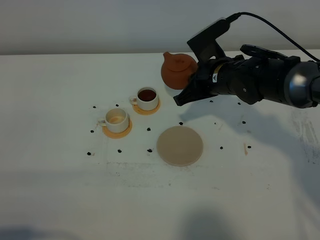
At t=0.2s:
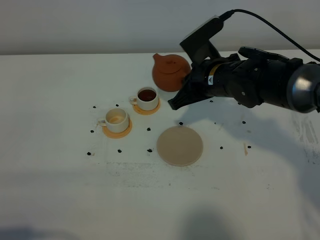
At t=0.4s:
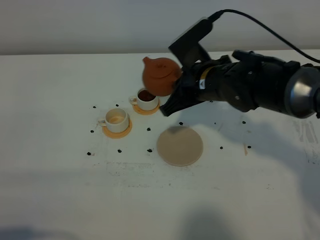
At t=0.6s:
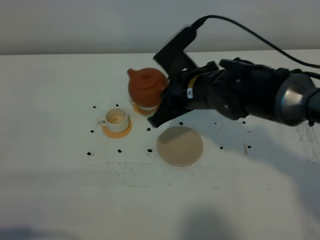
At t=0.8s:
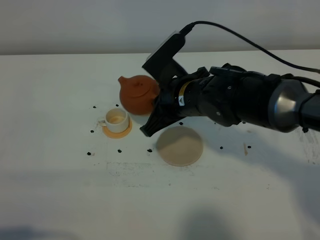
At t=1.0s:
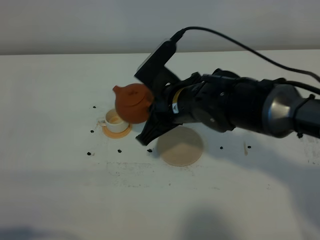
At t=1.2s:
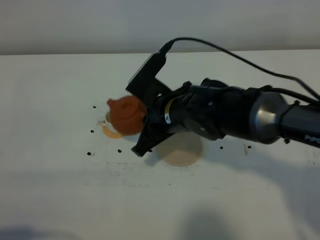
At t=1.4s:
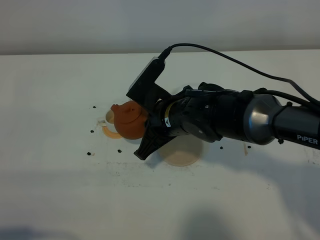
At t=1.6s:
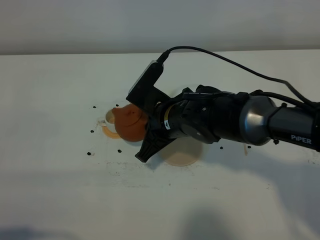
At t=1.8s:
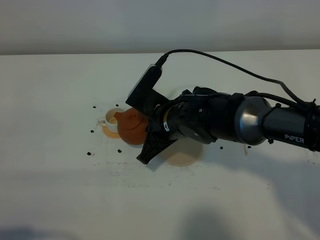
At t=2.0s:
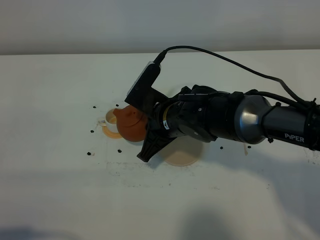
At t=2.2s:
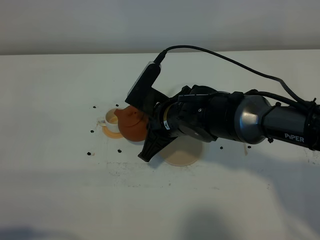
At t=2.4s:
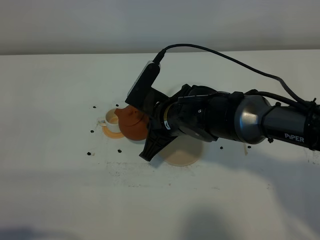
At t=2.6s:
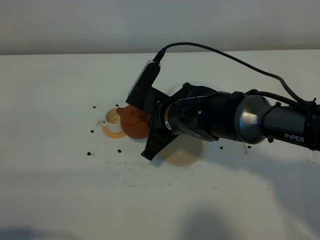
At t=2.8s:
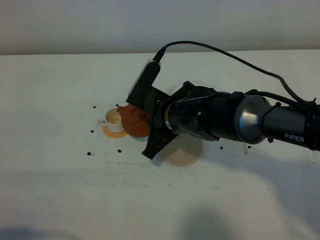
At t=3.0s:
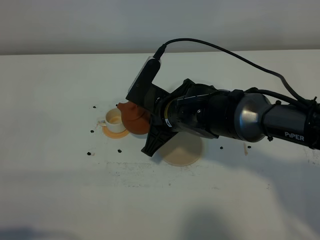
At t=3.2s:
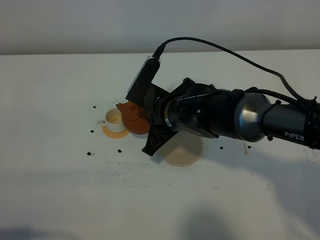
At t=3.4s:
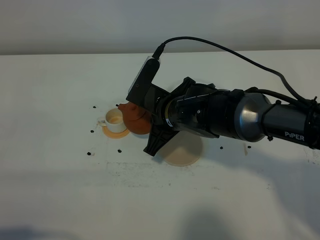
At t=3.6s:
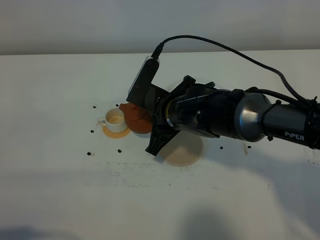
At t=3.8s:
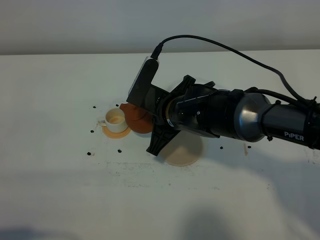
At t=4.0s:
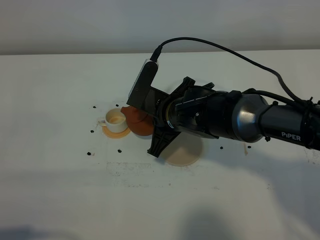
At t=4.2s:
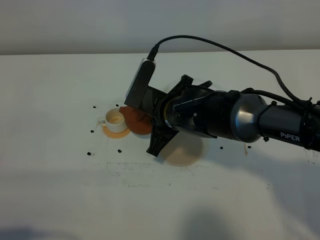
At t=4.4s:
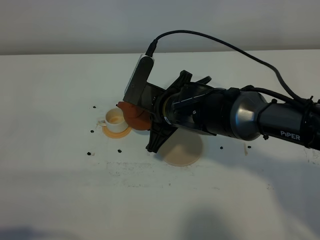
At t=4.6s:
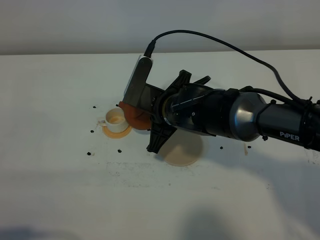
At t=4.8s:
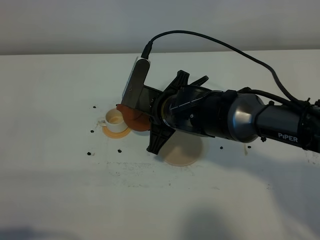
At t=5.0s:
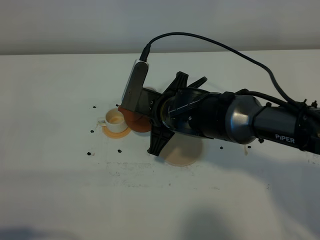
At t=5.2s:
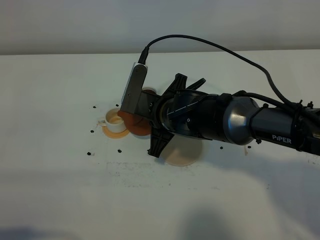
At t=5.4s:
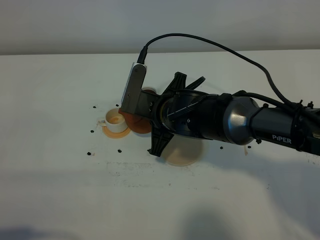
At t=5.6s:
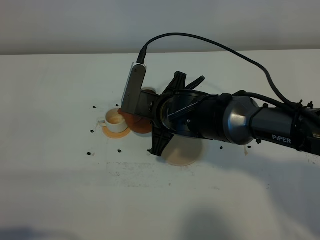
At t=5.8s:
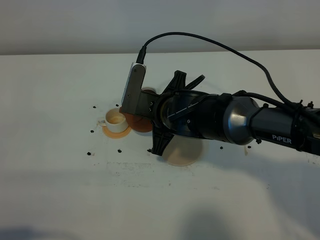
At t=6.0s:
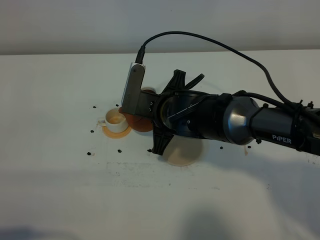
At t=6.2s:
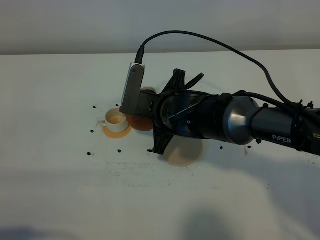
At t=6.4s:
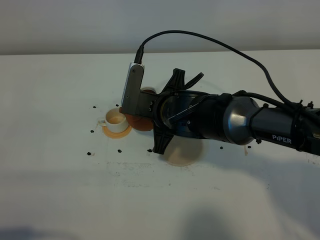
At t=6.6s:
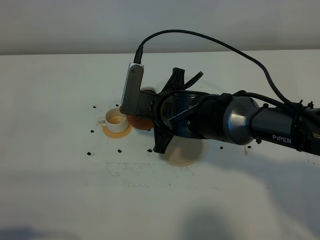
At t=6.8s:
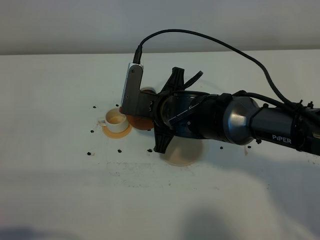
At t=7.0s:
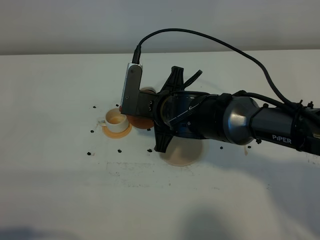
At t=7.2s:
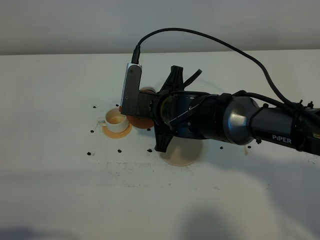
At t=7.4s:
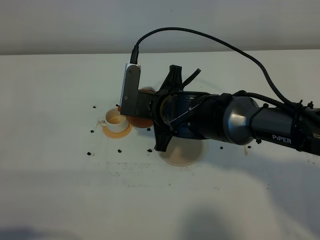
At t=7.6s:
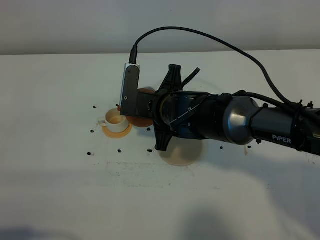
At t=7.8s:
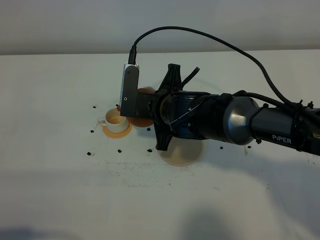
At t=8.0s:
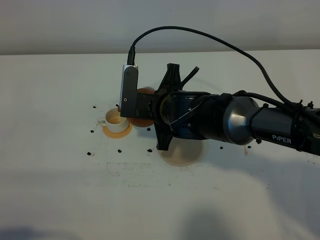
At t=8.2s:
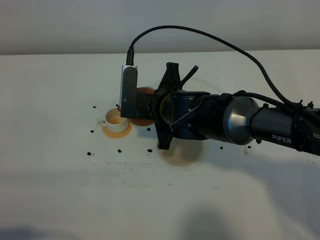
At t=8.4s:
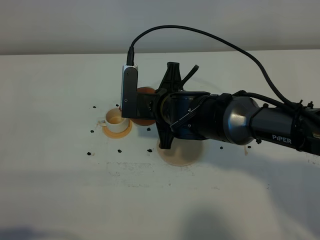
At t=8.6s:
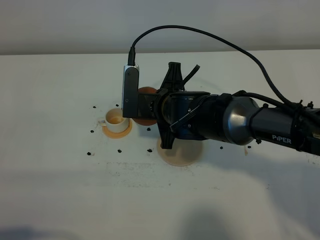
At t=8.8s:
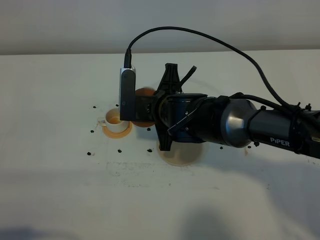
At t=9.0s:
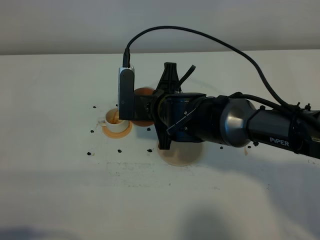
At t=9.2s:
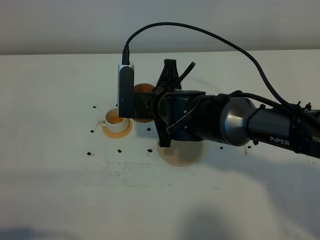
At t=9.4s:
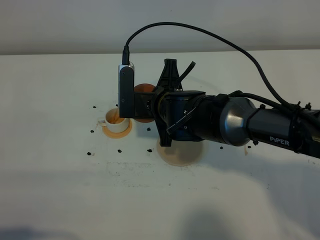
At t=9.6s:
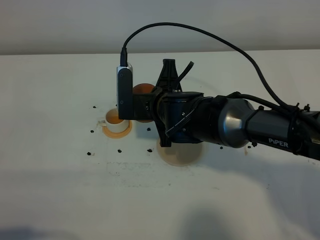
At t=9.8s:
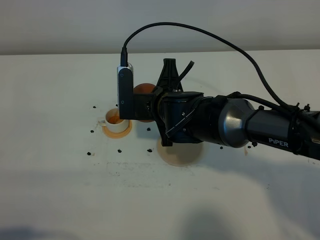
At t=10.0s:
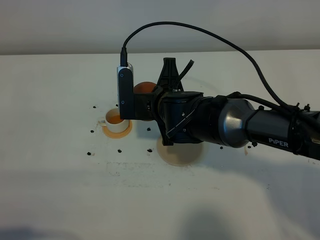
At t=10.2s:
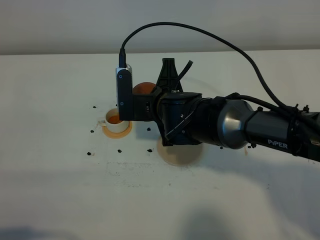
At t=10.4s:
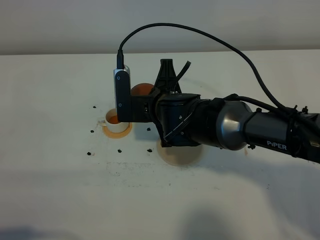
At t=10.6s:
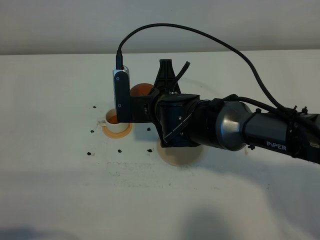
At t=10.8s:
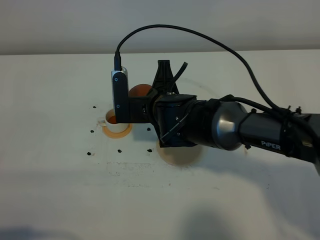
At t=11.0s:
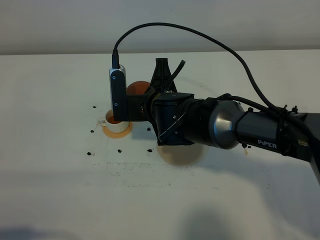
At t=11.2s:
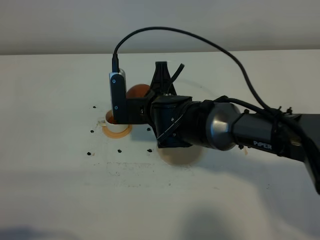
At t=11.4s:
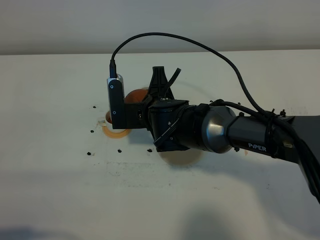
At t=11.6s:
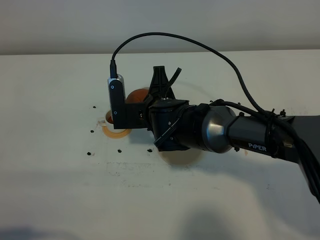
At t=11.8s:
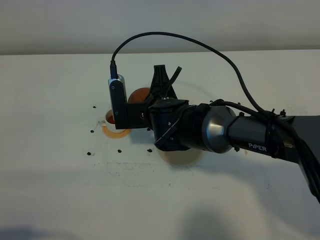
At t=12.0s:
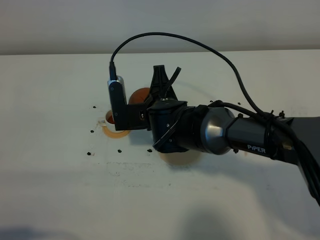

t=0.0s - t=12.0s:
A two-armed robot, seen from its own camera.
Task of the whole recording: grasp the brown teapot and pour the tea into the two white teacups one by one, put the brown teapot back in its original place.
t=0.0s - t=1.6s: The right gripper heads backward and to the left, covering some 10 cm.
t=1.6s - t=4.4s: The grippers stay close to where they were, moving slightly.
t=4.4s - t=7.6s: The grippers move only a little.
t=7.6s - t=12.0s: The grippers stay close to where they were, moving slightly.

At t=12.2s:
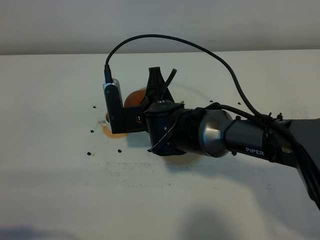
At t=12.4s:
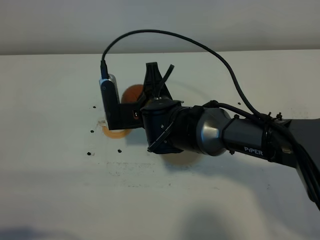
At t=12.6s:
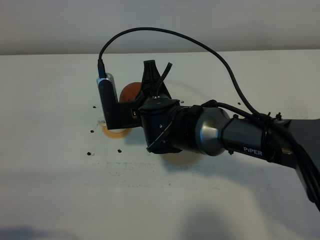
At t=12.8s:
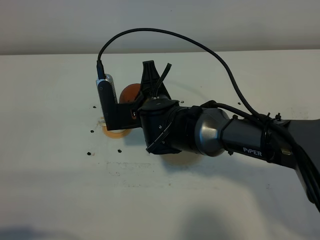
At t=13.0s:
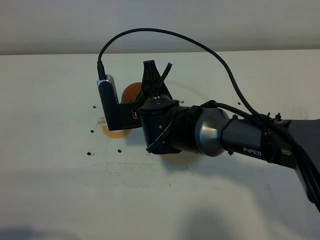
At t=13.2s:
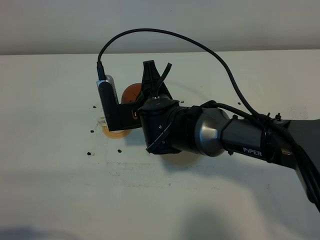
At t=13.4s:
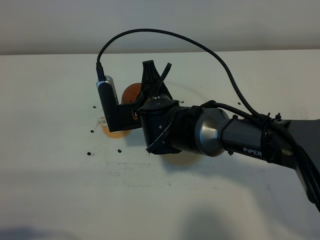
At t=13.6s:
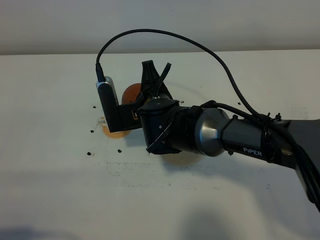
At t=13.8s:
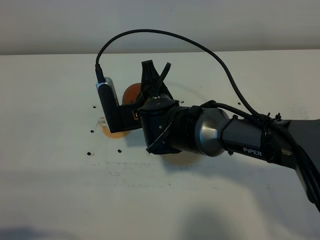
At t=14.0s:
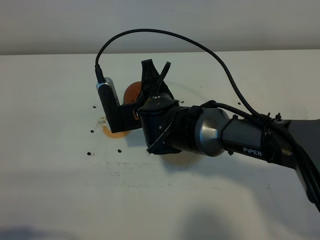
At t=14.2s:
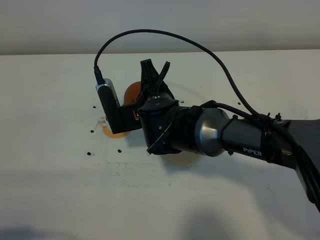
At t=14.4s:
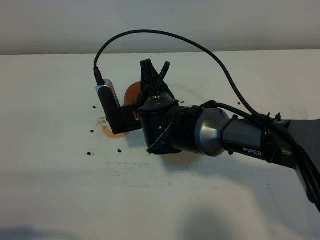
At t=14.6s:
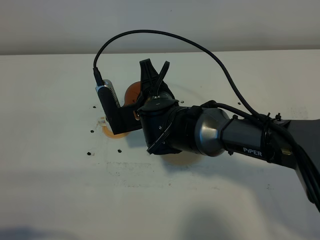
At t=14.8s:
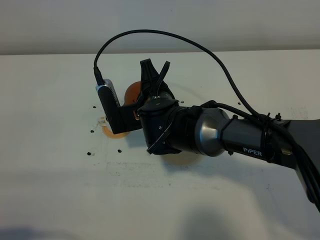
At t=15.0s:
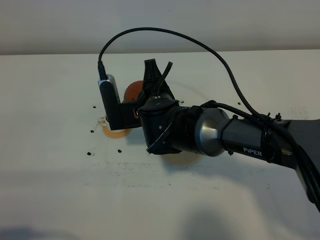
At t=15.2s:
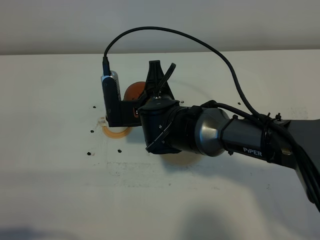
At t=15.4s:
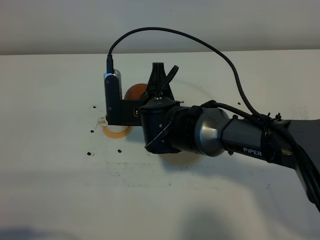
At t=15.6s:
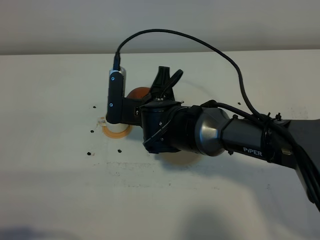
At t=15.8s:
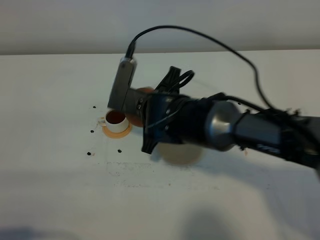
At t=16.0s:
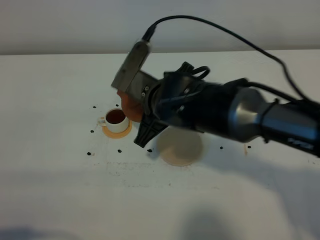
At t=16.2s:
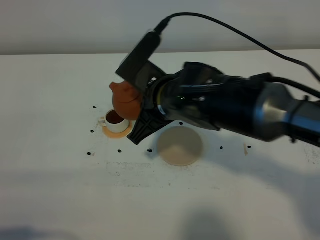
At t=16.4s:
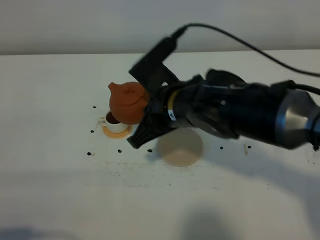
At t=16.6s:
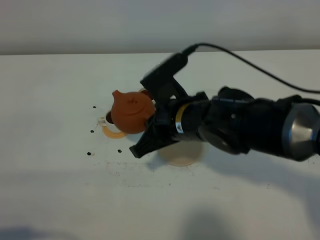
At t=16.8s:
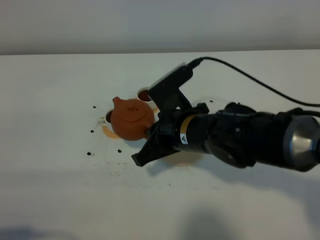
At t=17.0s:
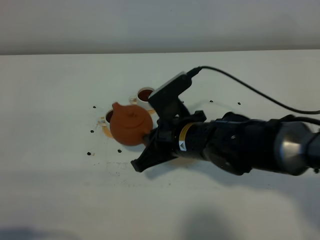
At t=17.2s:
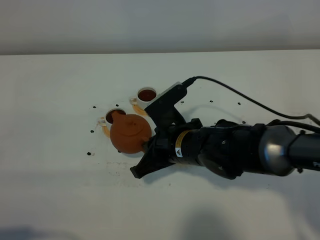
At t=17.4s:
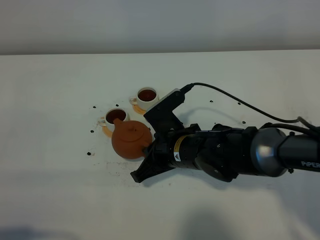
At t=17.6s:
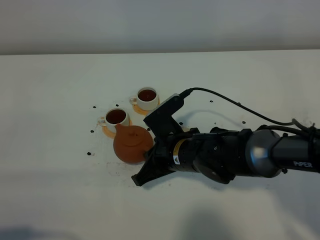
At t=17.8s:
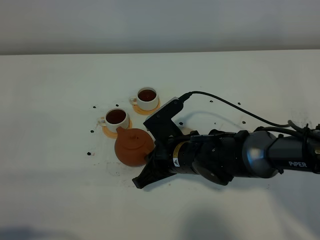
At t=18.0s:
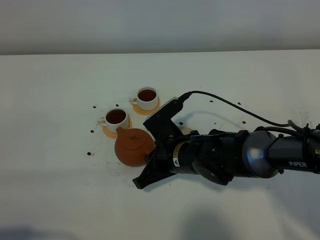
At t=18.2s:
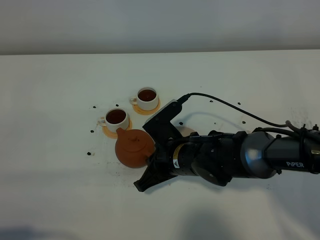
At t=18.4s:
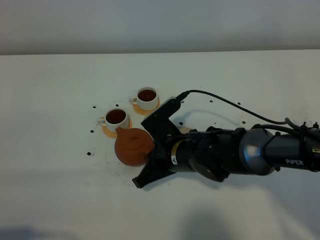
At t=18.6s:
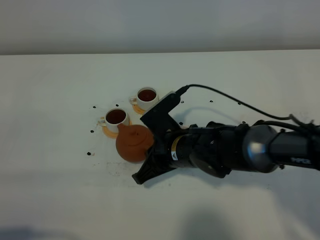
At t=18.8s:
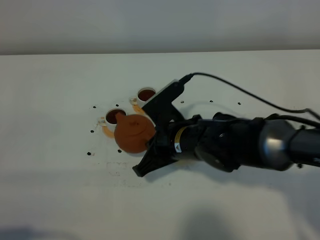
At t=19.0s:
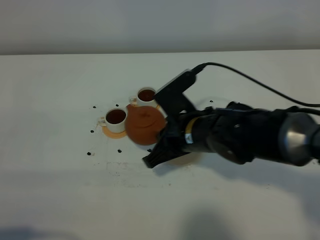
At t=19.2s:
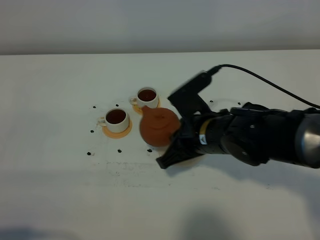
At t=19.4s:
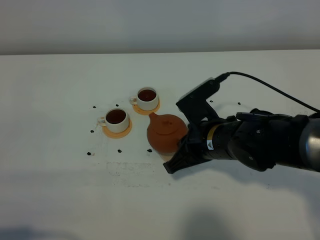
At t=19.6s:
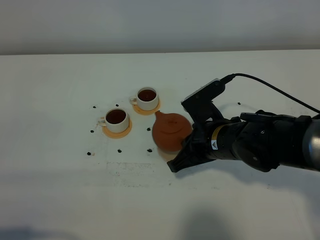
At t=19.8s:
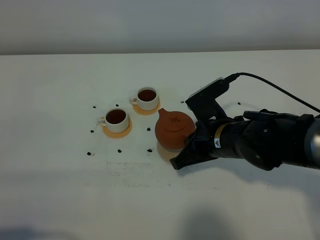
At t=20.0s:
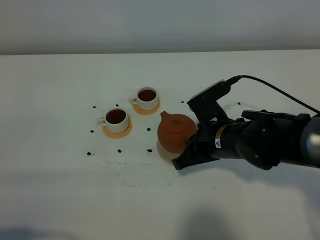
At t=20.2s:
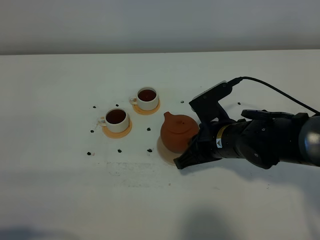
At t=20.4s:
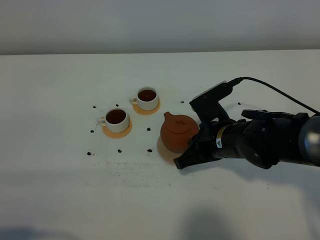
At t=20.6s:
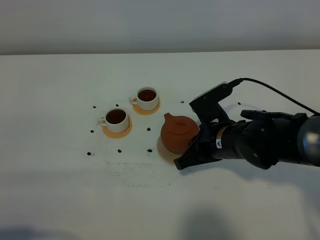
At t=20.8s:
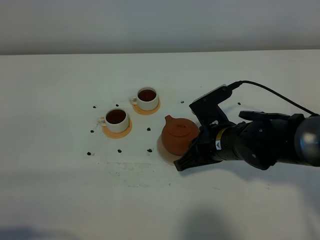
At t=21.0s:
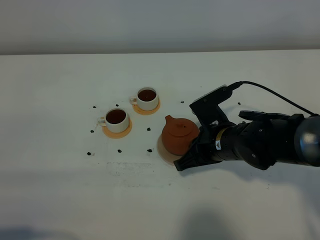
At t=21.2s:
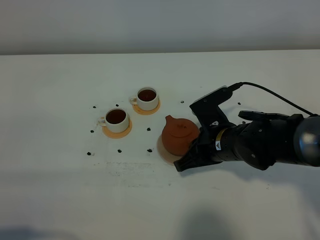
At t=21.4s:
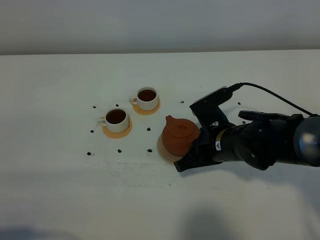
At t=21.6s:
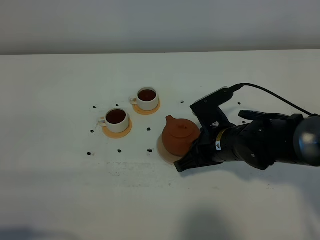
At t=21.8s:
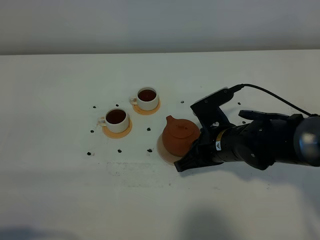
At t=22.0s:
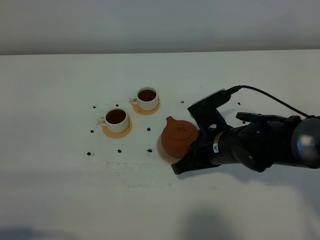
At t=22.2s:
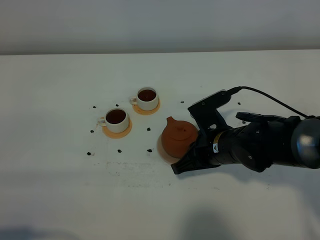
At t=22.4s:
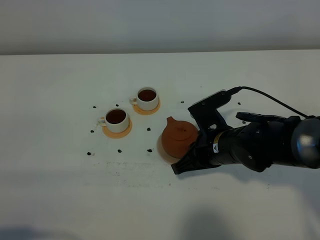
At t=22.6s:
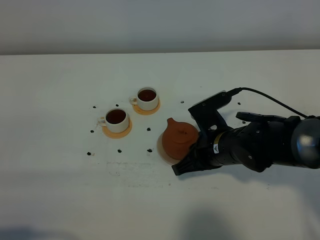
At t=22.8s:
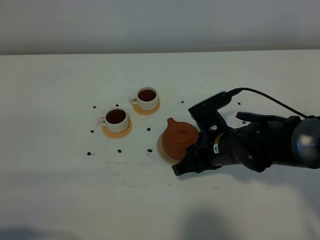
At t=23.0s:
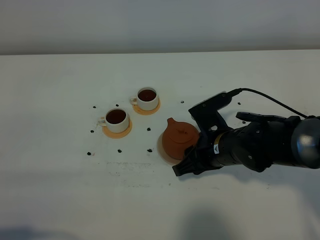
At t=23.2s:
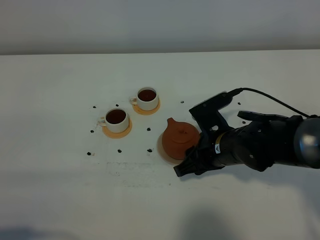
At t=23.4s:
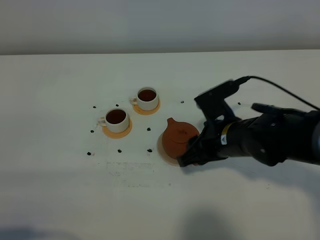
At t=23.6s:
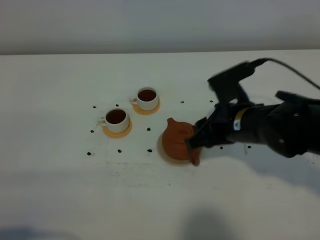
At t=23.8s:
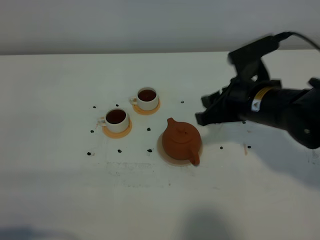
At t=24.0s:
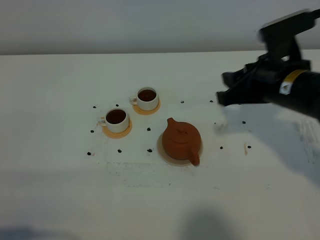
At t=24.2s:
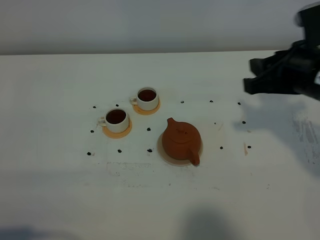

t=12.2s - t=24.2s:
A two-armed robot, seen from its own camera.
Task of the whole recording: grasp the brown teapot and pour the tea into the two white teacups one by one, put the brown teapot back in its original place.
Step, t=12.2s - t=15.8s: Pour tea into the teacup with the right gripper.
t=12.2s - t=15.2s: There are only small adjustments of the grippers.
t=15.2s - t=16.6s: The right gripper heads to the right, covering roughly 5 cm.
t=16.6s - t=18.2s: The right gripper moves downward, approximately 10 cm.
t=18.2s - t=19.8s: The right gripper goes approximately 5 cm to the right.
t=19.8s - t=21.2s: The grippers stay close to where they were, moving slightly.
t=21.2s - t=22.6s: The two grippers keep their place.
t=22.6s - t=24.2s: The right gripper moves upward and to the right, about 20 cm, and opens.
